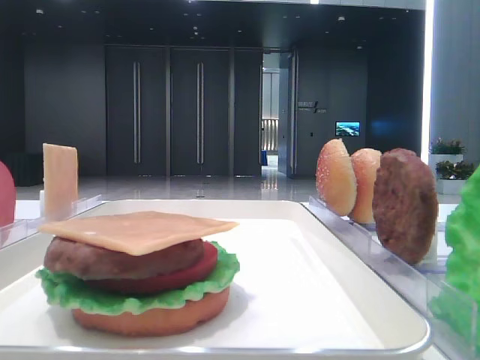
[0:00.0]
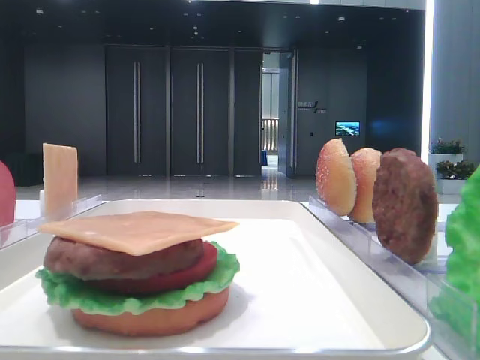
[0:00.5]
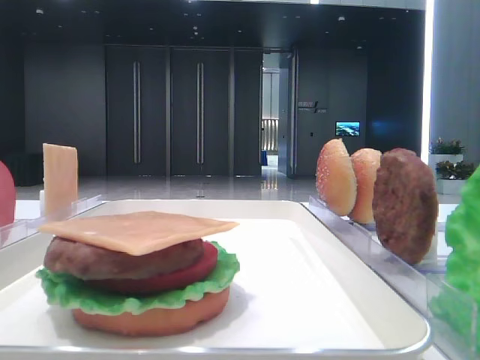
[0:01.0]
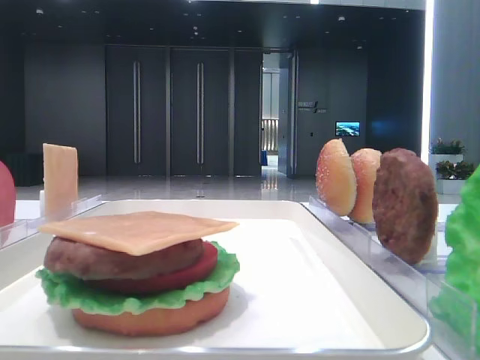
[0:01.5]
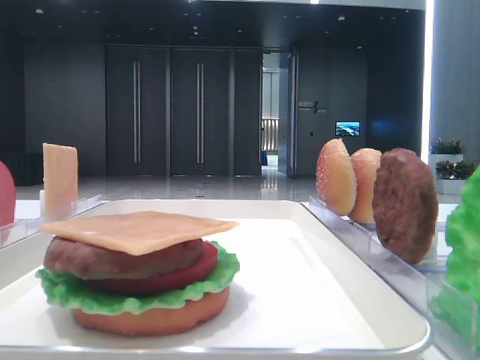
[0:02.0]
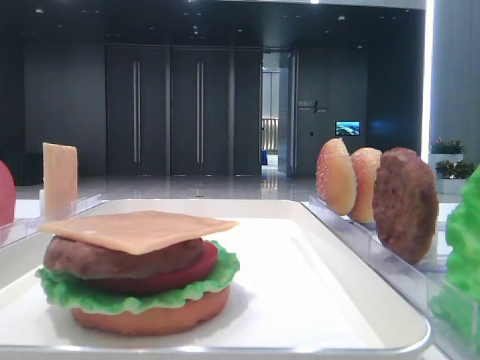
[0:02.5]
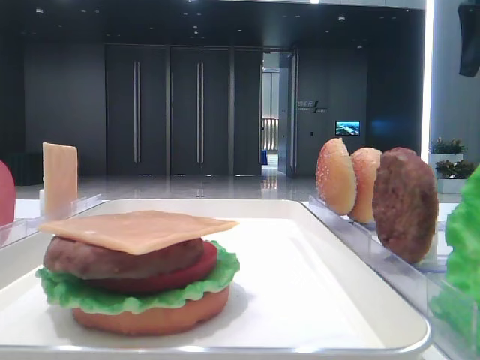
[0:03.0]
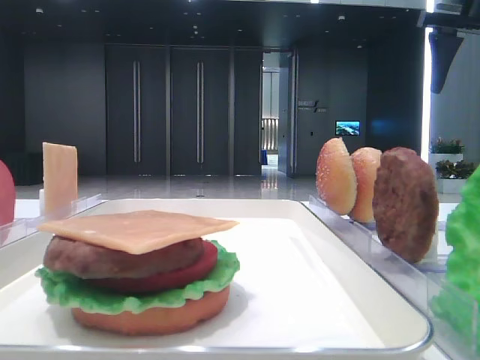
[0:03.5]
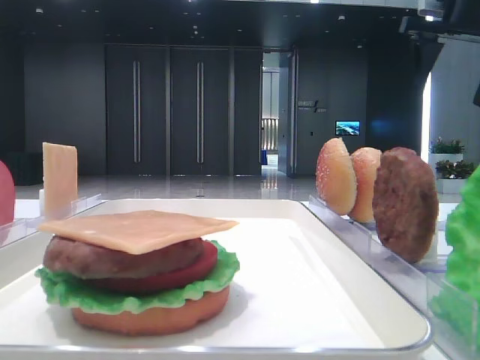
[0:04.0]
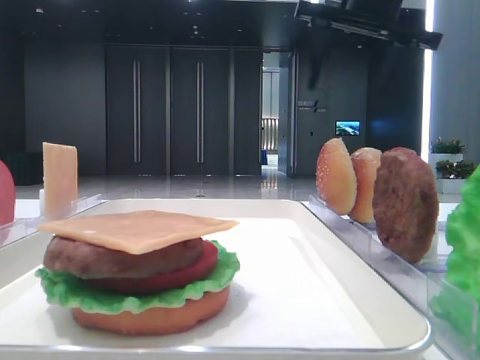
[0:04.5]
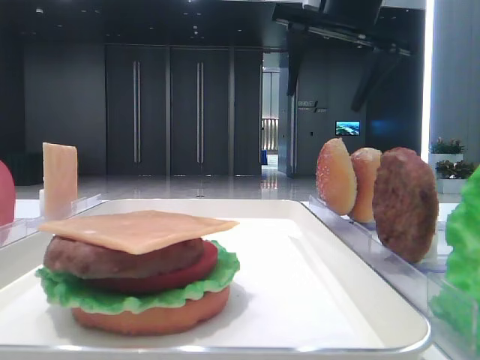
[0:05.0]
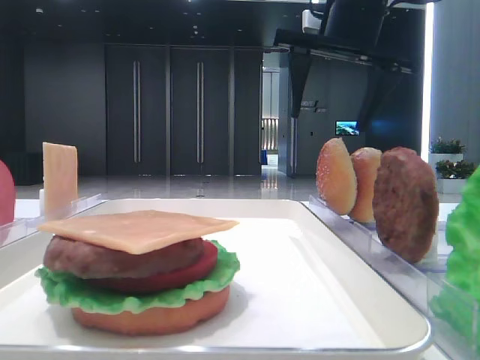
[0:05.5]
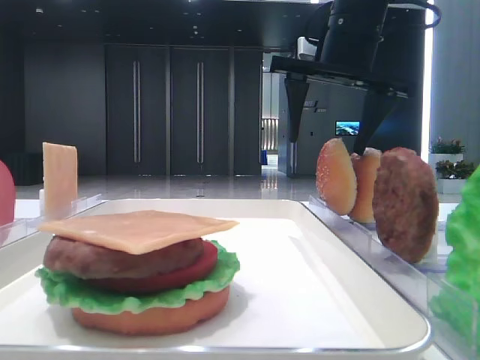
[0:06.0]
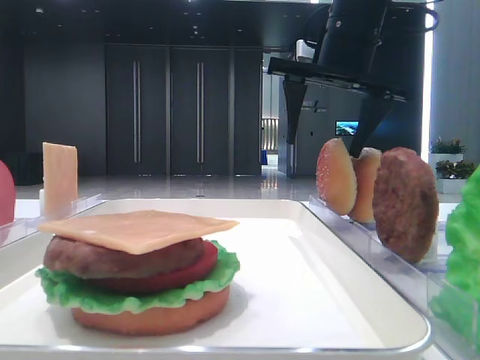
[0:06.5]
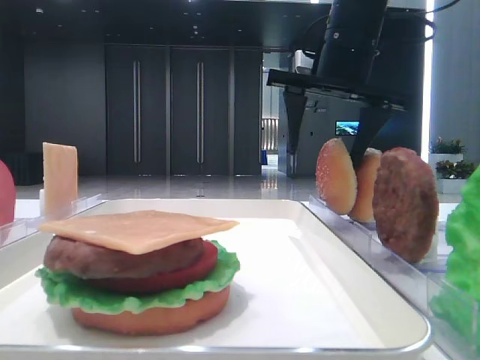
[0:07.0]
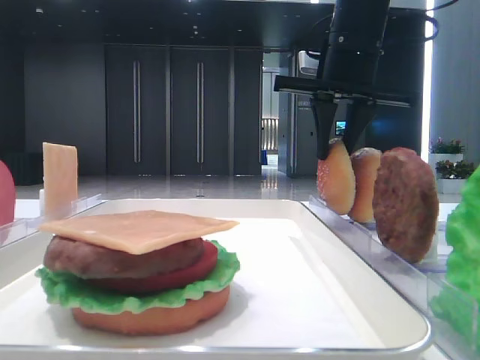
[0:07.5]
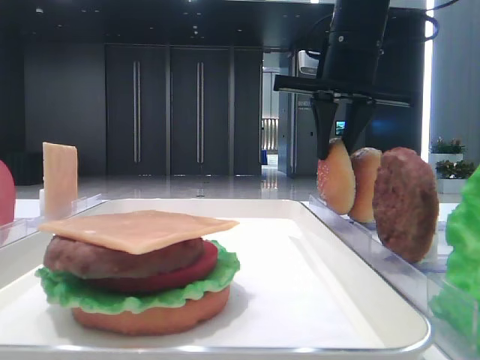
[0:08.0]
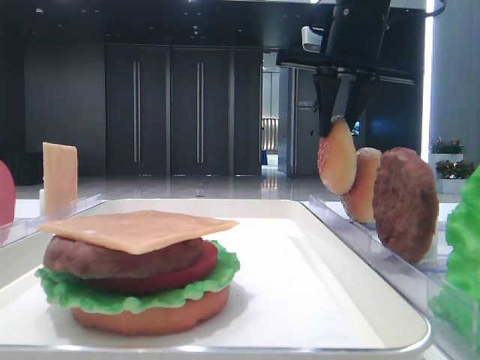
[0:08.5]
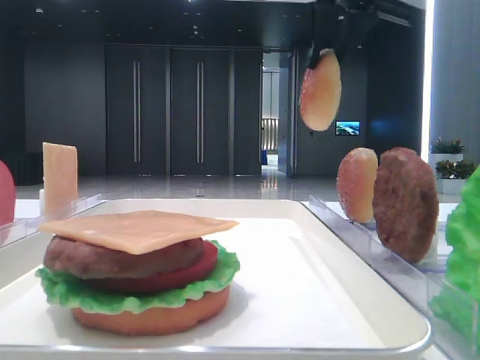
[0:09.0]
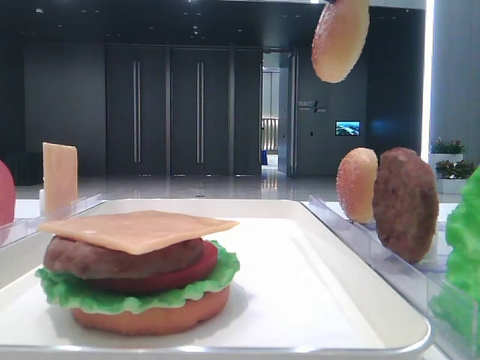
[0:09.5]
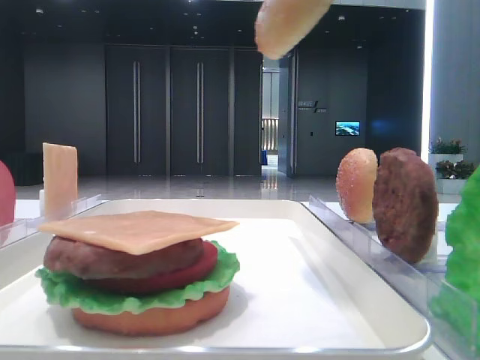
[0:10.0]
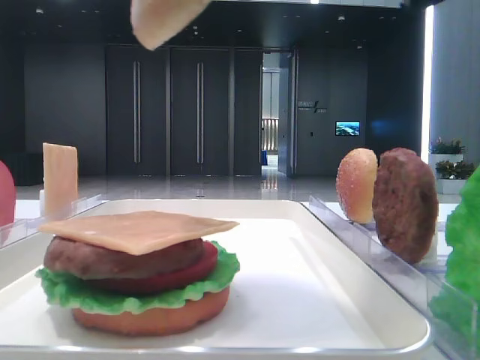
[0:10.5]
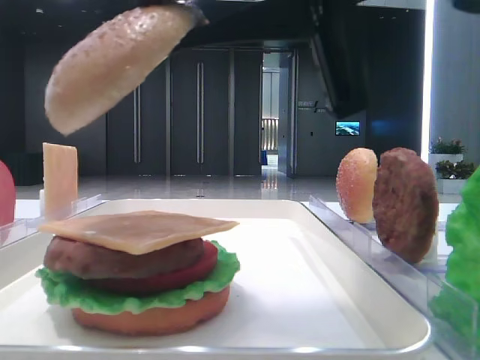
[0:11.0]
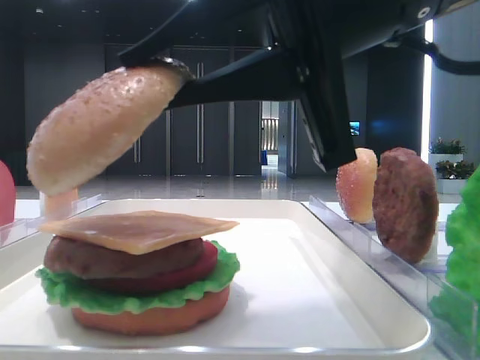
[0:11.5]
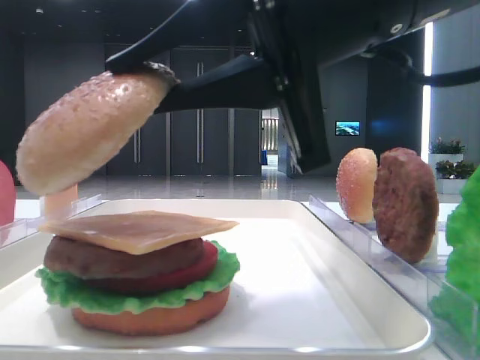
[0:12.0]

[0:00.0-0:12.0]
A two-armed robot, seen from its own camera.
Step, 0:00.0 to 0:07.5: Pick up the top bread slice with the right hand.
0:02.0 to 0:04.0: The right gripper moves forward, roughly 35 cm.
0:04.0 to 0:06.0: The right gripper heads to the left, covering roughly 15 cm.
0:06.0 to 0:08.0: The right gripper closes up.
0:08.0 to 0:10.0: The right gripper travels backward by roughly 20 cm.
0:10.0 to 0:12.0: The right gripper moves downward and to the left, some 15 cm.

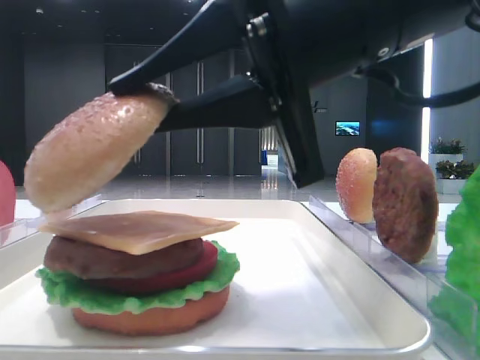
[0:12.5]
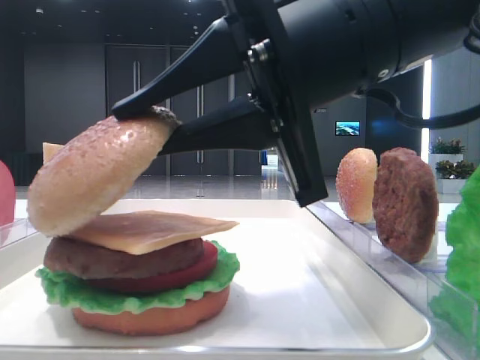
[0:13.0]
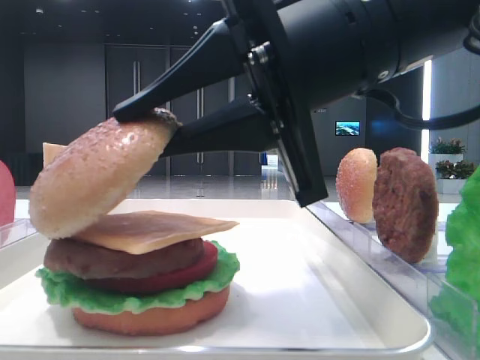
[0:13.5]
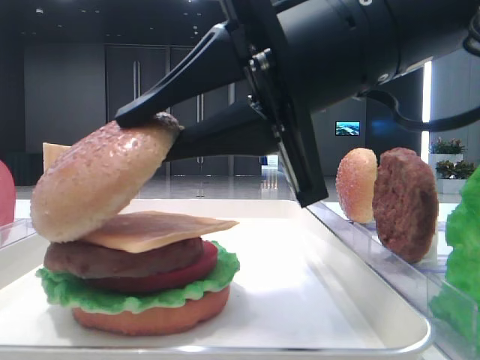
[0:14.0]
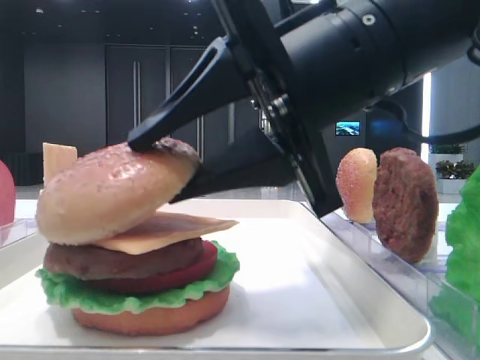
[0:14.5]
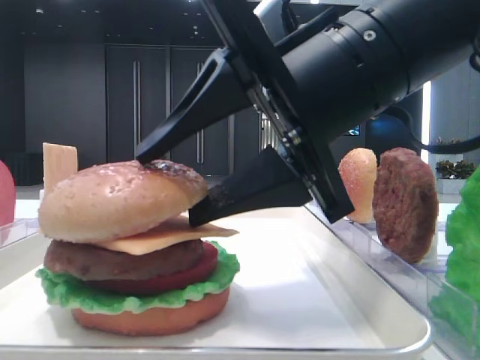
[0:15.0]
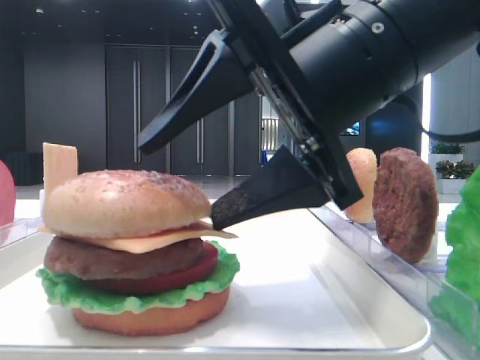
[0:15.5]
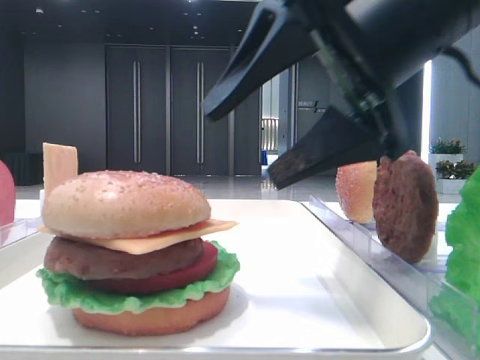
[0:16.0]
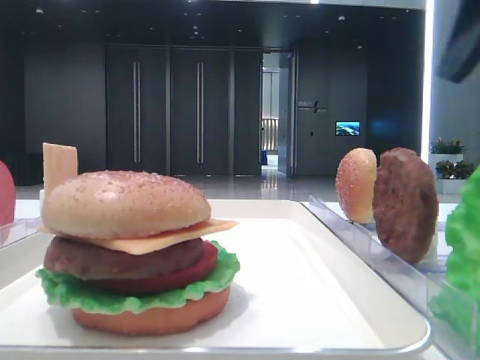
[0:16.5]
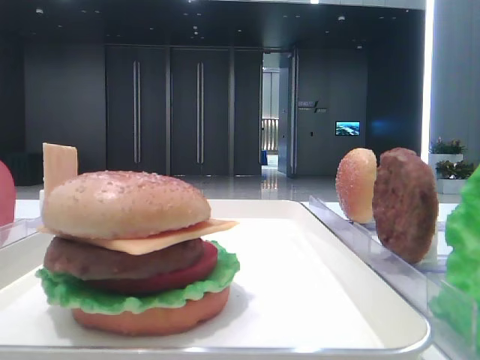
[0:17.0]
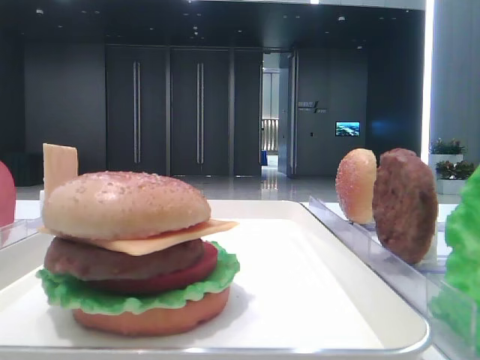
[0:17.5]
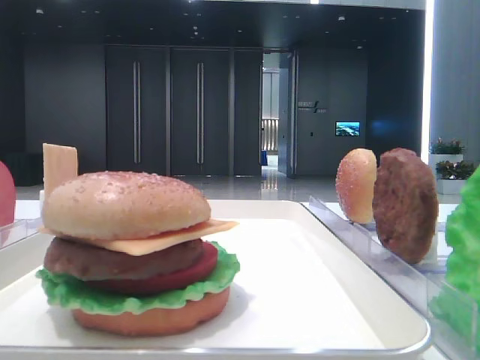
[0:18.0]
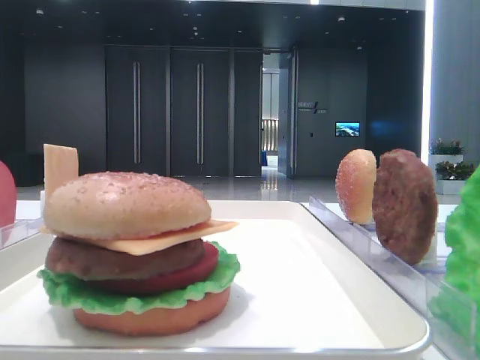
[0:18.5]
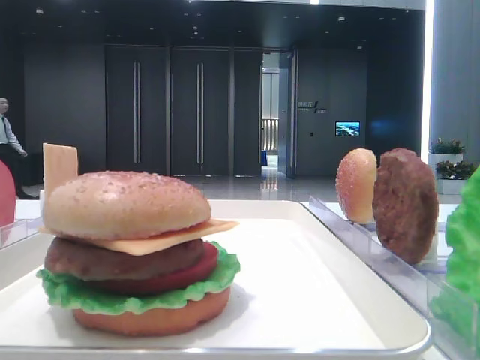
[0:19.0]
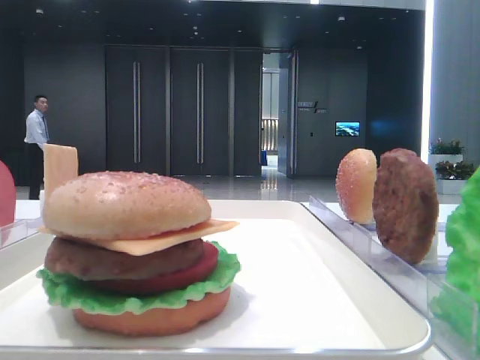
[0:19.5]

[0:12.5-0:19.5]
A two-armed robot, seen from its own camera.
Step, 0:12.5 to 0:15.5: Place the top bread slice on the cheese with the right hand.
0:14.5 to 0:16.0: The right gripper shifts by some 5 cm, and opens its fingers.
0:16.0 to 0:17.5: The right gripper shifts some 30 cm to the right, backward and upward.

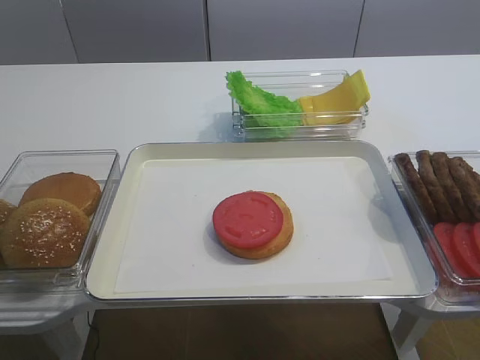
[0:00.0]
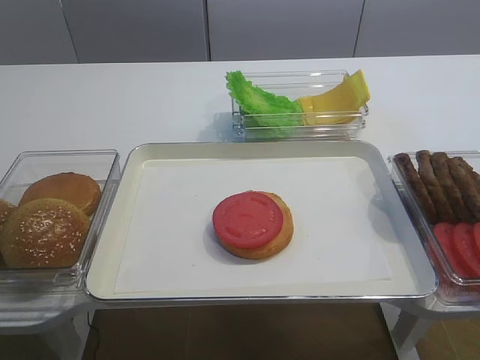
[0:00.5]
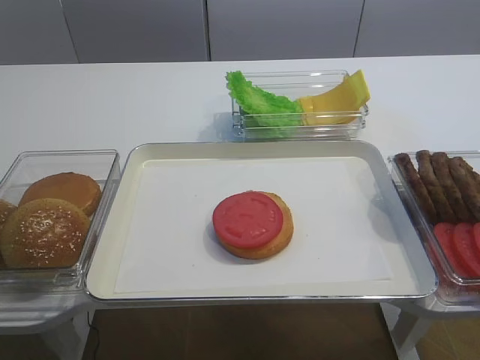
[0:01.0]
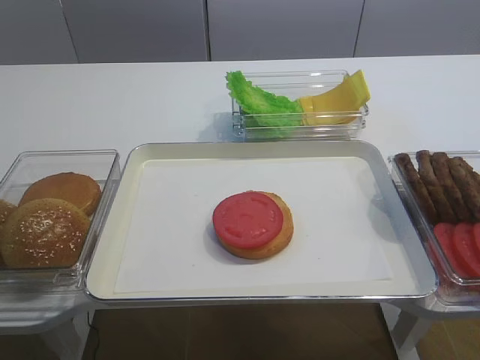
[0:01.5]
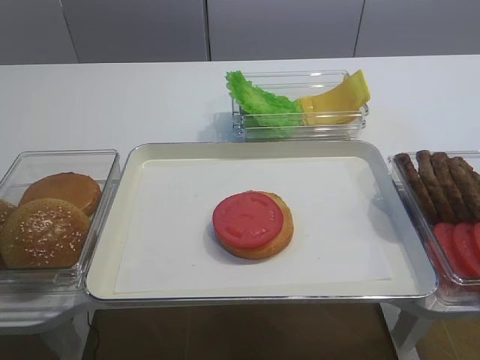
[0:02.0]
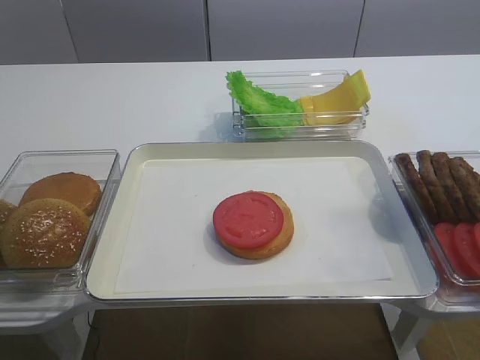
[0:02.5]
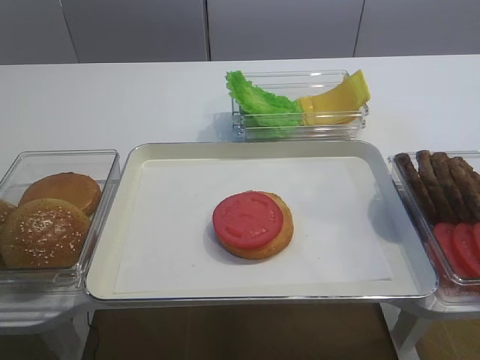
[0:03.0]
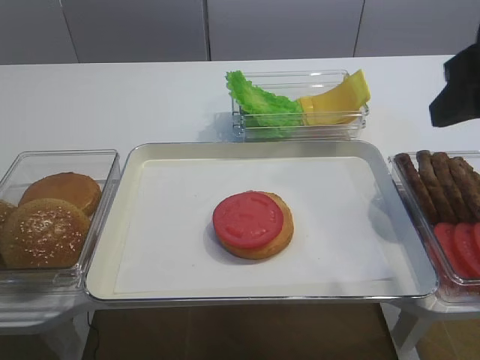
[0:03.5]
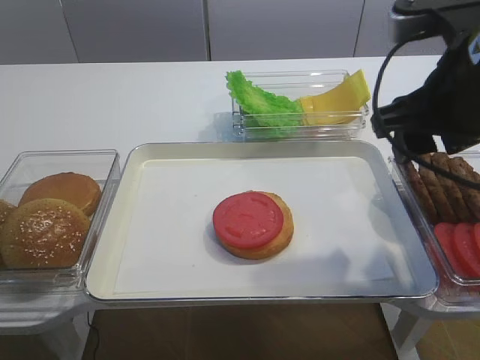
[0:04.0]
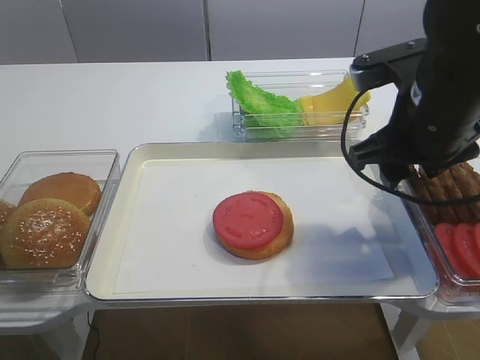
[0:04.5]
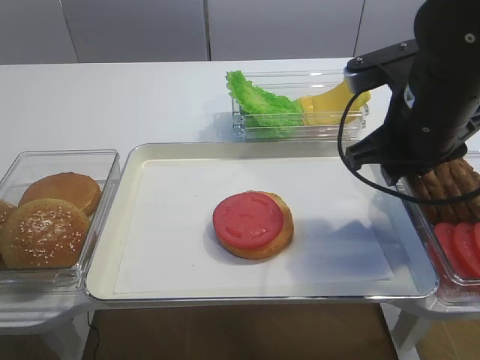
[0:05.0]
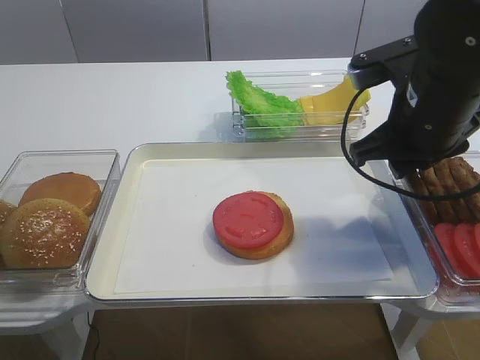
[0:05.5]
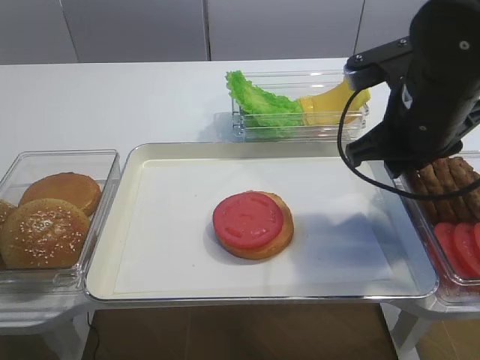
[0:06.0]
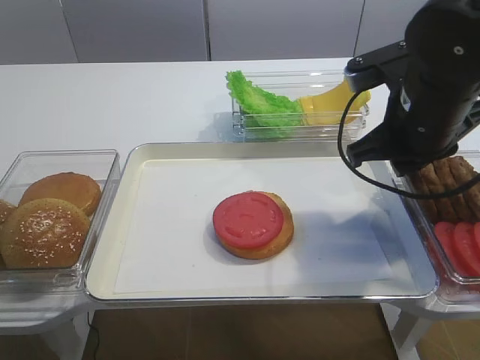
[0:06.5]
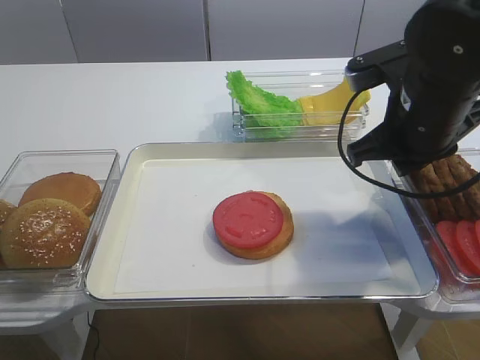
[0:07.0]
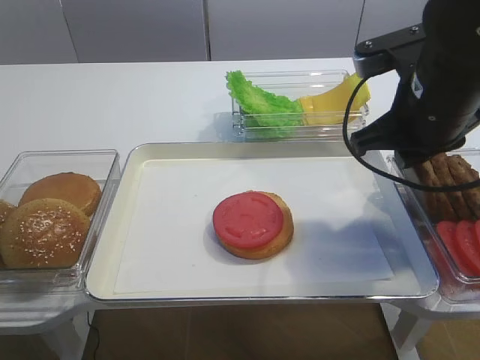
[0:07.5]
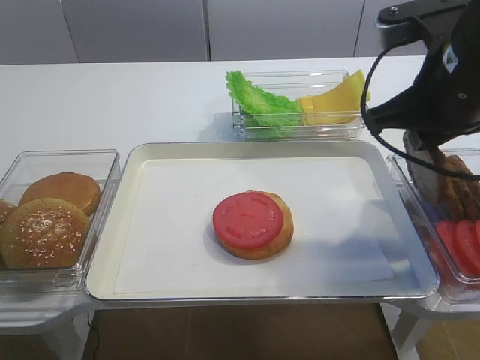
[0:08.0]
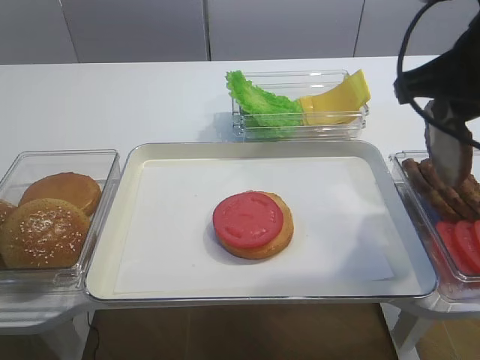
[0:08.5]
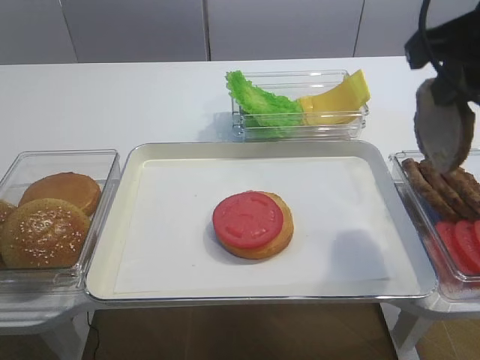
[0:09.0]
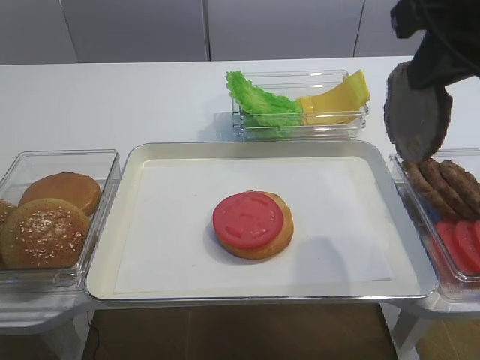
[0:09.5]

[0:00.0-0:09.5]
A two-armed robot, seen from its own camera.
Step, 0:00.0 to 0:08.0: Pick up the cutlet with the right gripper.
0:02.0 to 0:04.0: The right gripper travels forward and to the left by some 25 cm.
0:04.0 to 0:05.5: The right gripper goes about 5 cm downward, and closes up.
0:05.5 to 0:07.5: Both grippers stay put.
0:07.5 to 0:09.5: The right gripper goes about 15 cm upward and backward.
